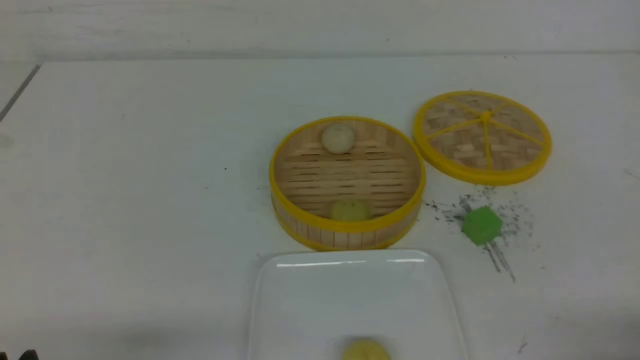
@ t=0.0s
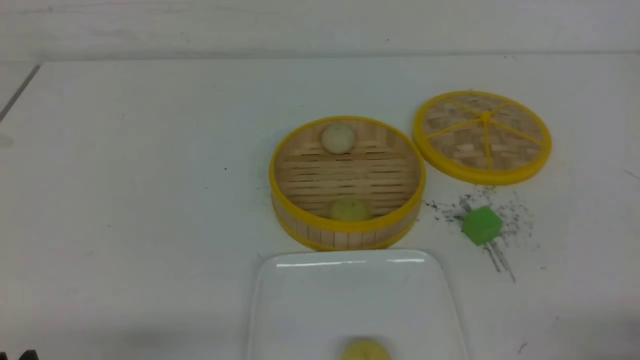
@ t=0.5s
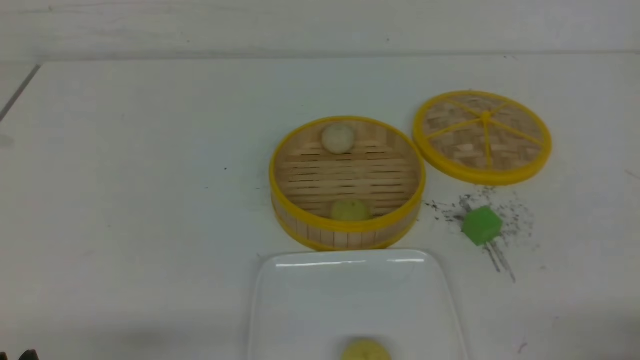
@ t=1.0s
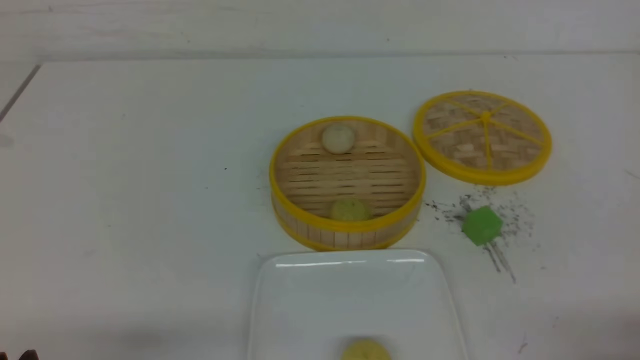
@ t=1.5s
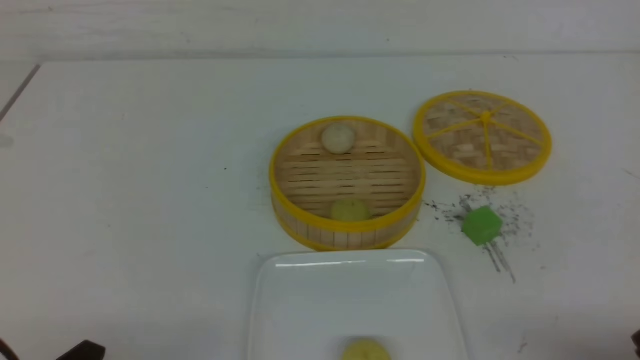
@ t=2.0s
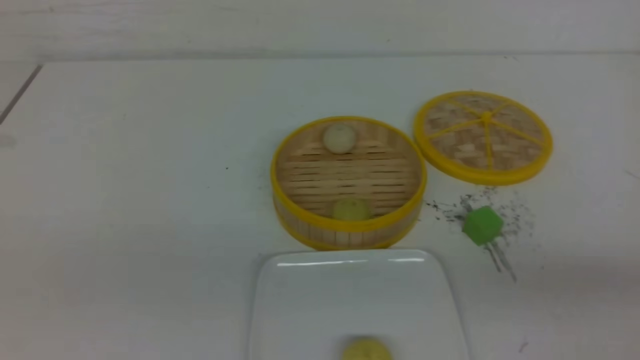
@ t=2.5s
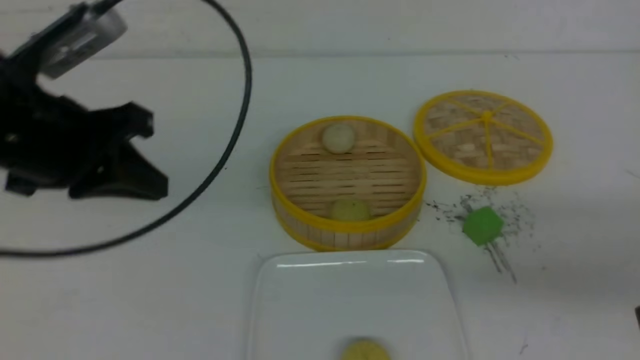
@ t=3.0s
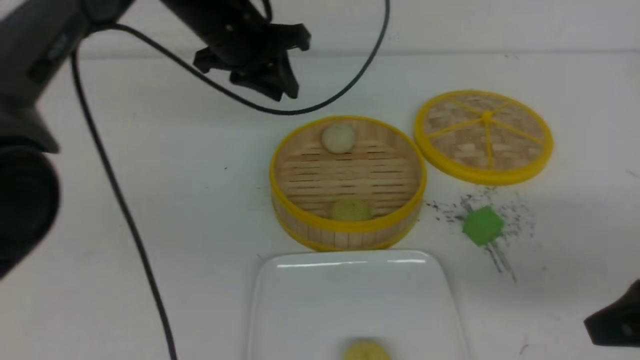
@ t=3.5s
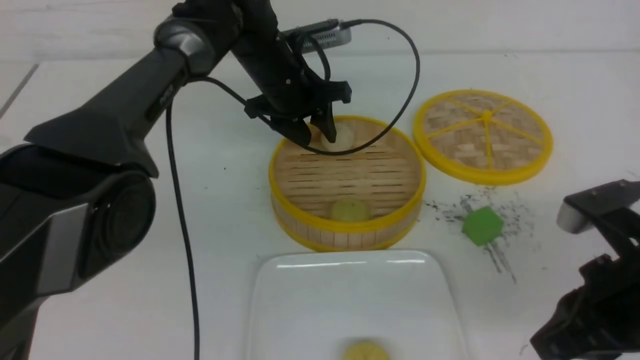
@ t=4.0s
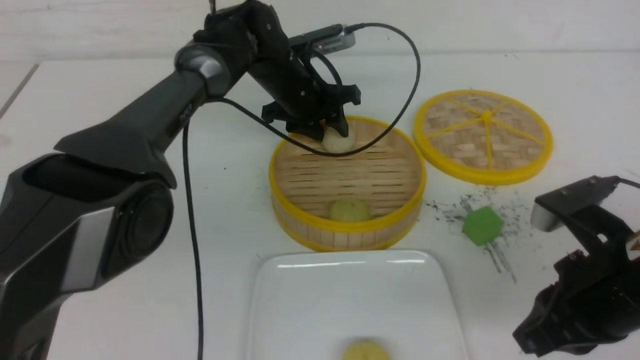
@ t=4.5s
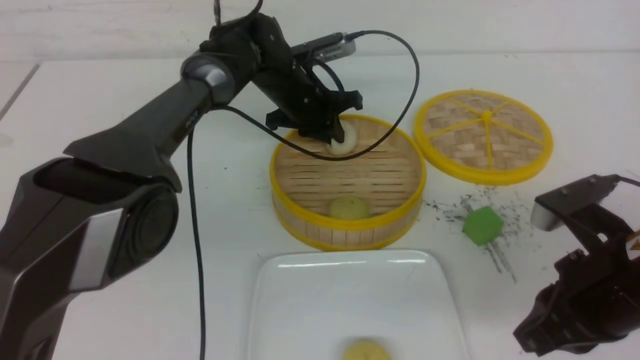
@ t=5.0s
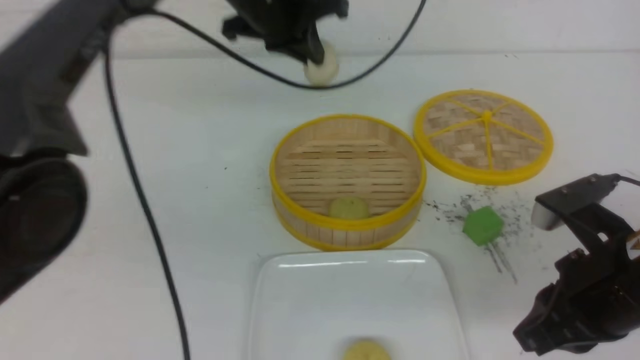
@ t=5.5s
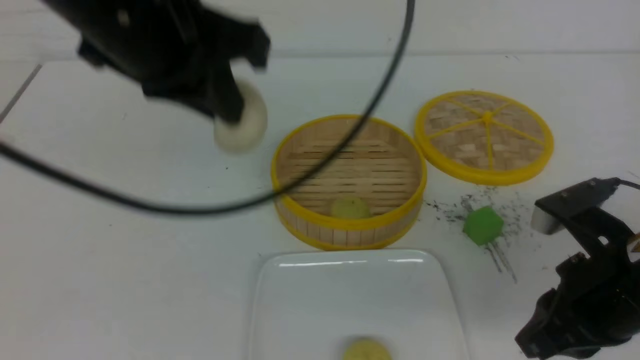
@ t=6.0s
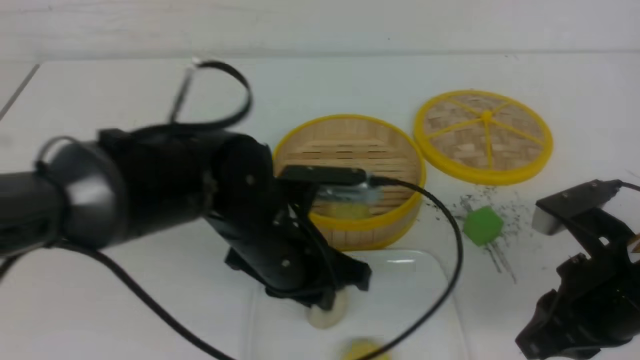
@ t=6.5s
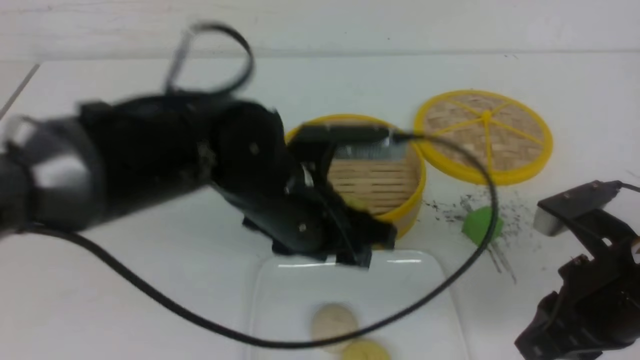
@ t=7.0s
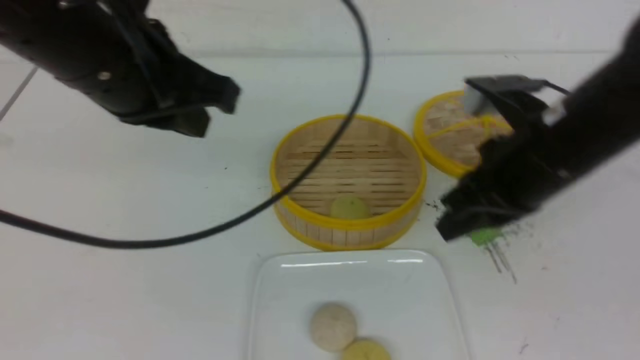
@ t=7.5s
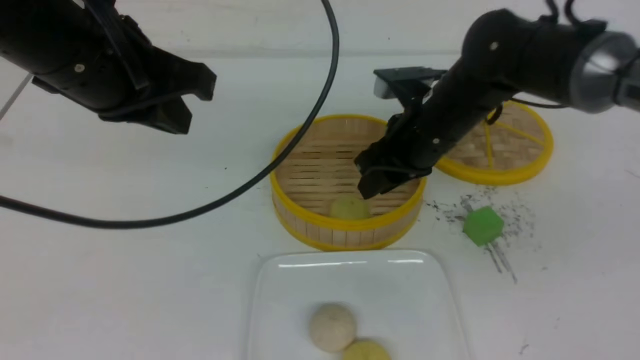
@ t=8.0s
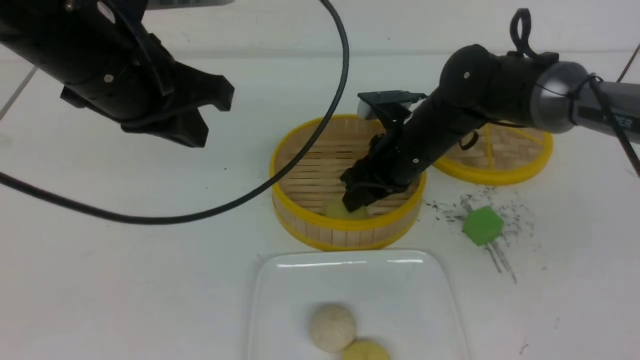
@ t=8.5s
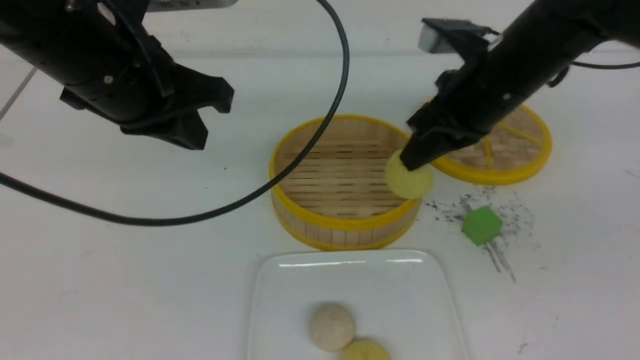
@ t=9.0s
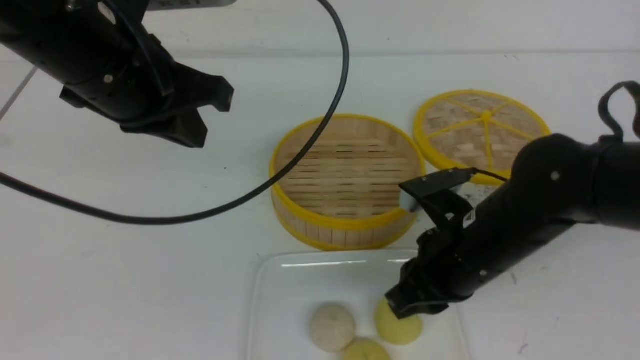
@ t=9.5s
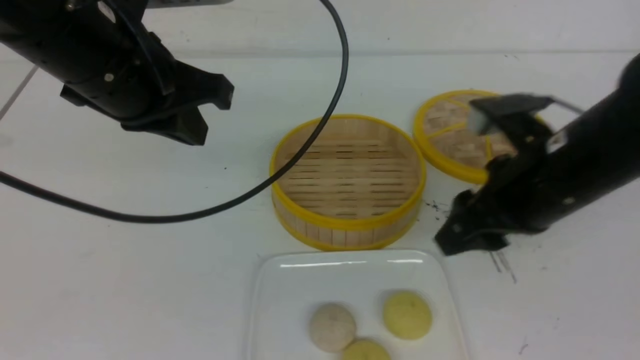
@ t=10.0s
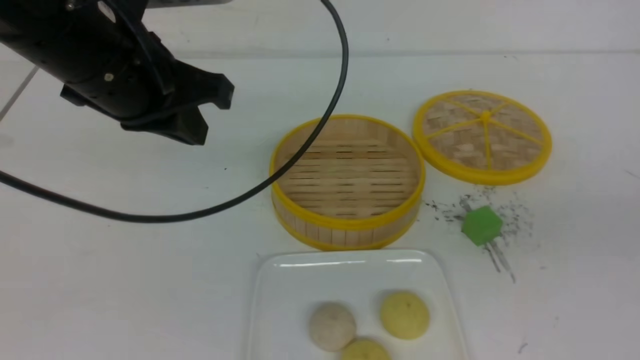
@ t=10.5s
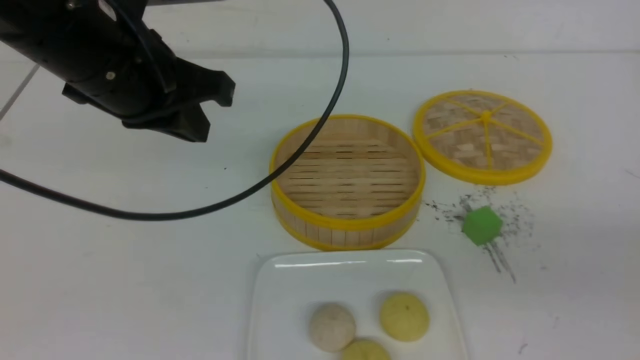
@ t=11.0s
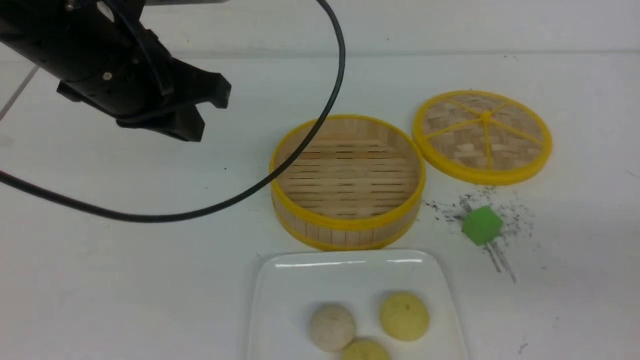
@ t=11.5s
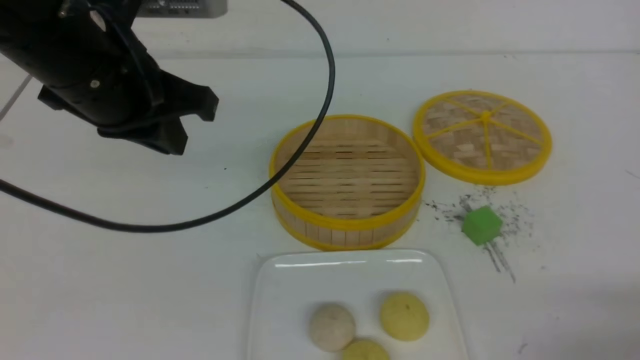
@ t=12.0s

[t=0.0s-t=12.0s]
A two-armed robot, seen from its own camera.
Step, t=0.0s to t=5.0s: use the left arm to grab the steamed stuffed bun that is closest to it.
Step, t=5.5s to t=6.5s: use the left arm to put the steamed stuffed bun into the plate.
Step, t=7.0s to t=8.5s: use the right arm to grab the steamed stuffed bun that is closest to it.
Step, t=9.0s to t=9.5s: use the right arm to put the steamed stuffed bun into the plate.
t=2.0s to t=4.0s: The right gripper goes some 15 cm forward, to the left and upward, and closes its fingers; the left gripper heads forward and to the right, covering approximately 50 cm, and closes and opens again.
t=4.0s to t=6.0s: The left gripper is displaced backward and upward by some 25 cm, and closes its fingers.
t=6.0s to t=8.0s: The right gripper goes roughly 20 cm forward and to the left, and opens its fingers. The left gripper shifts roughly 5 cm to the left, moves approximately 15 cm downward and comes back, and opens, then closes again.
t=8.0s to t=10.0s: The right gripper shifts about 15 cm backward, to the right and upward, and closes, then opens again.
t=10.0s to t=12.0s: The right gripper shifts some 25 cm backward, to the right and downward, and closes its fingers.

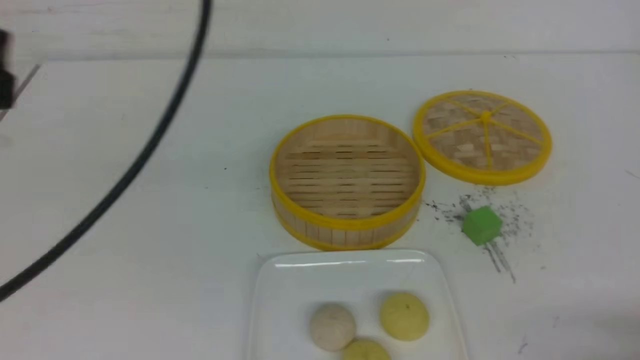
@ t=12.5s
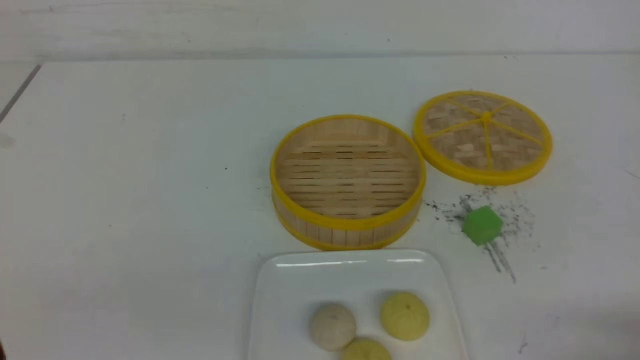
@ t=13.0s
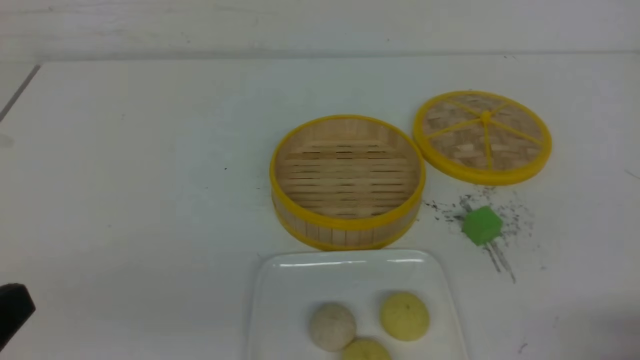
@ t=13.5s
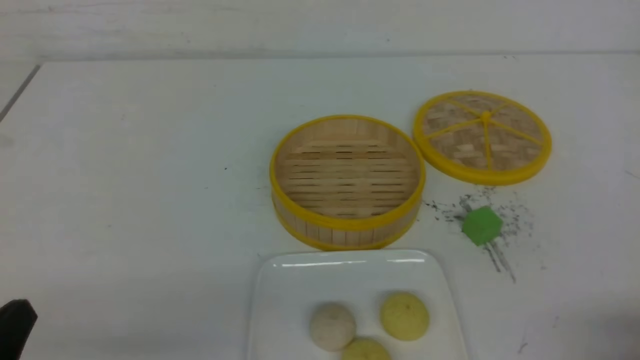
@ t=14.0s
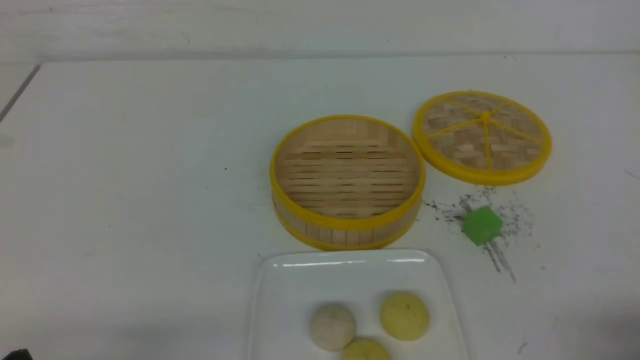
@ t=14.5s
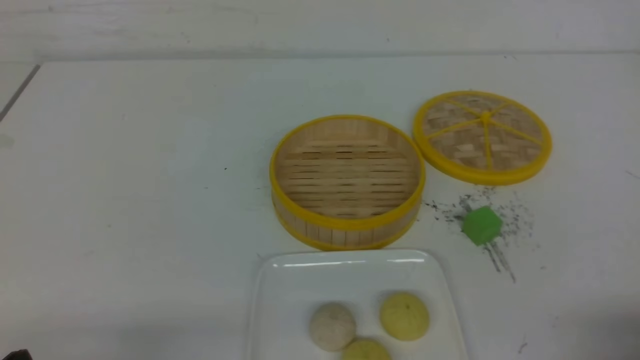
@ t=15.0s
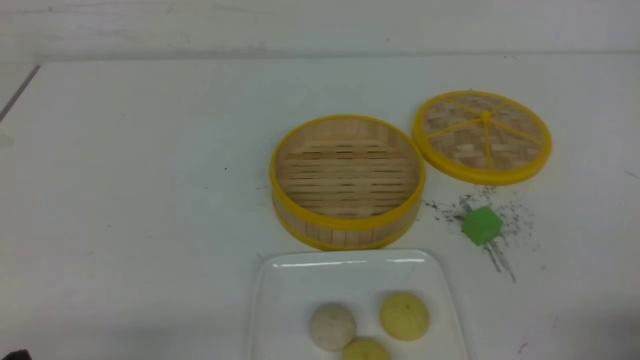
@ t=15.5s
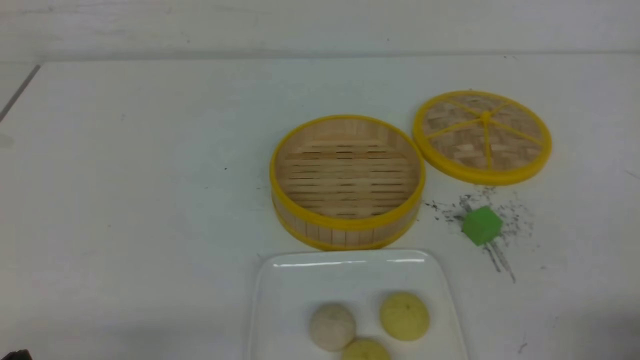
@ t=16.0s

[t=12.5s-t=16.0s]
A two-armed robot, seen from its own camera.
t=12.5s to t=14.5s: The left gripper heads downward, covering some 30 cm.
t=14.5s to t=16.0s: Both grippers stay put.

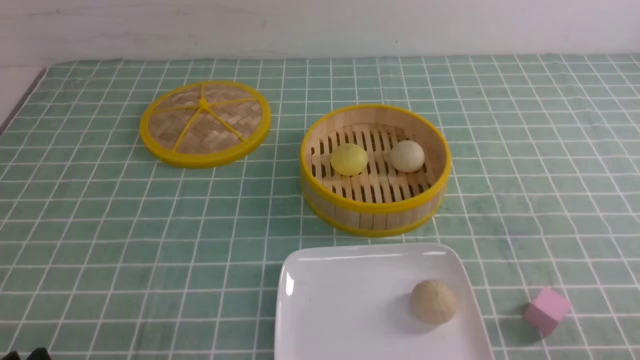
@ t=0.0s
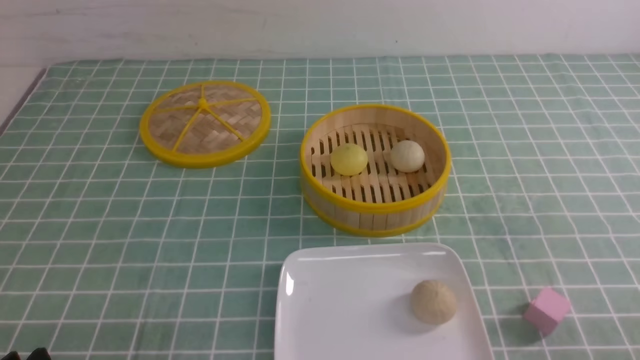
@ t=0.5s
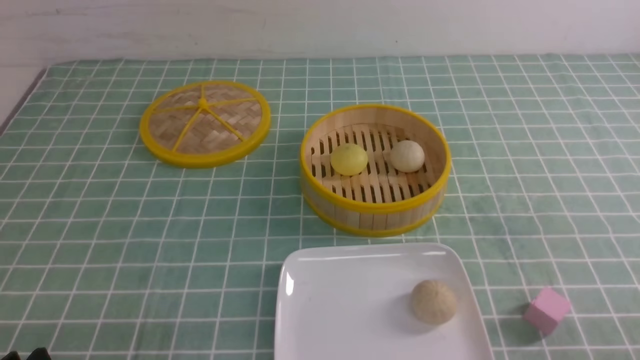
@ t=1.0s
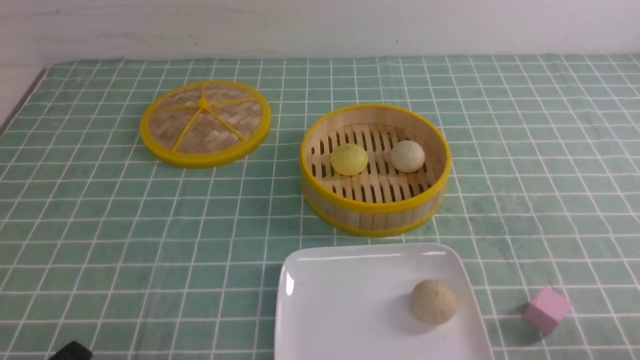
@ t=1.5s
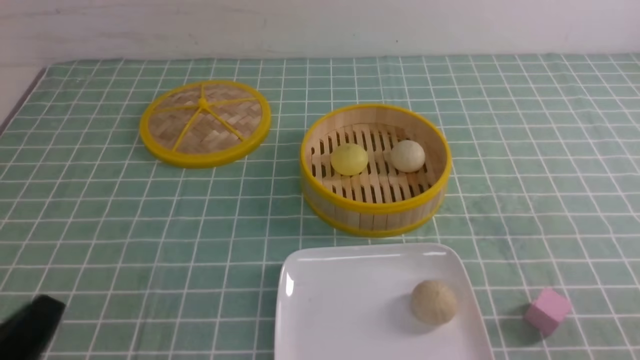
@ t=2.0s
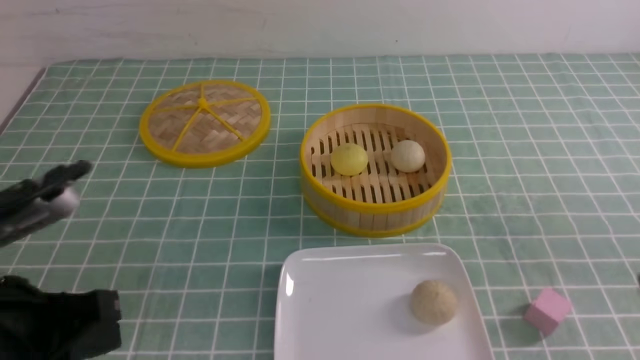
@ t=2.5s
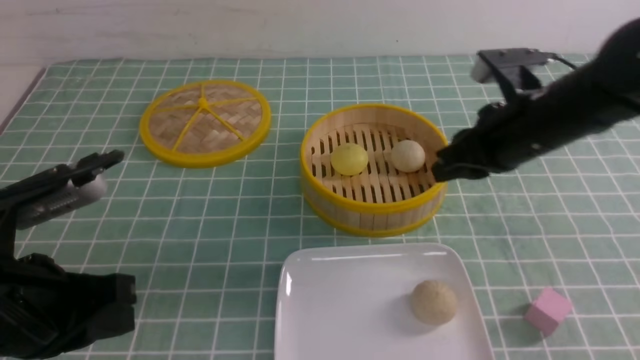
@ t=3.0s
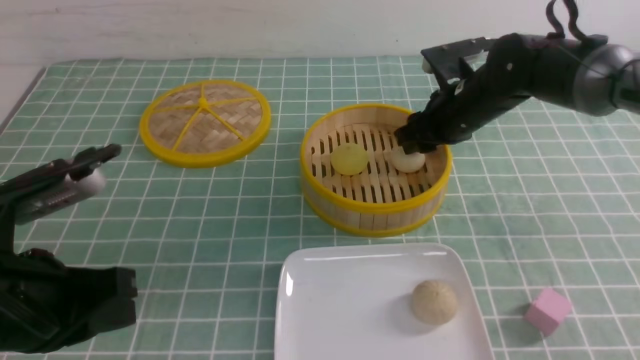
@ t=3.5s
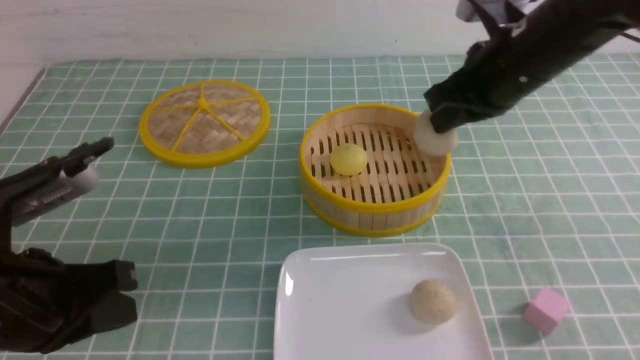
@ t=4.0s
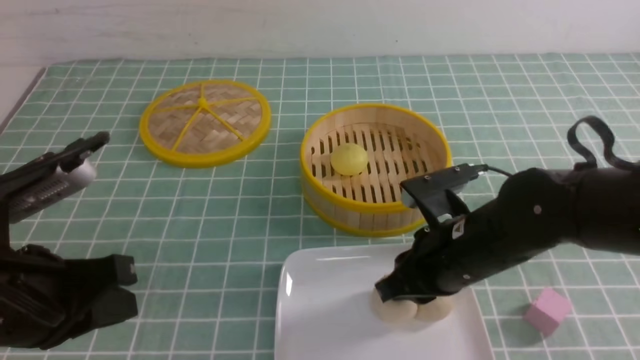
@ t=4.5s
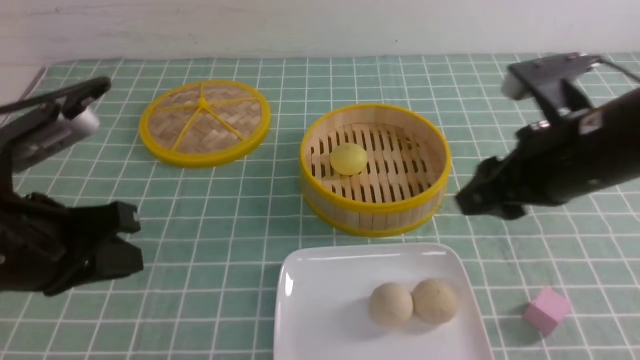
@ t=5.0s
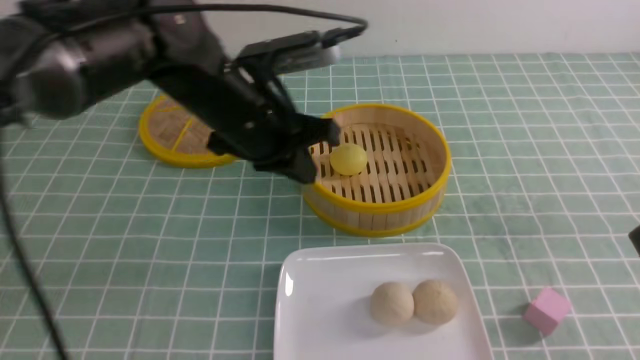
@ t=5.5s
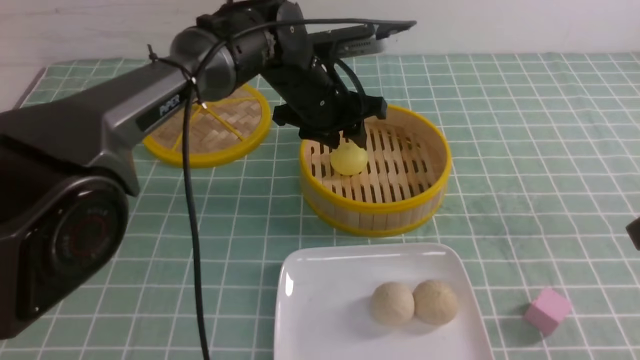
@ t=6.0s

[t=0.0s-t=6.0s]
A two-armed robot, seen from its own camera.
Step, t=0.0s to t=3.5s: use the right arm to grab the steamed stuffed bun that is closest to it.
Step, t=4.0s to t=4.5s: use the right arm to put the steamed stuffed bun into the plate.
t=0.0s to t=2.0s: The left gripper moves upward, about 5 cm, and closes.
t=2.0s to t=4.0s: The left gripper travels forward by some 10 cm. Meanwhile the right gripper heads forward and to the left, covering about 35 cm, and opens and closes again.
t=4.0s to t=6.0s: The left gripper shifts about 35 cm forward and to the right, and opens. Meanwhile the right gripper moves backward, to the right and upward, some 20 cm, and opens, then closes again.
